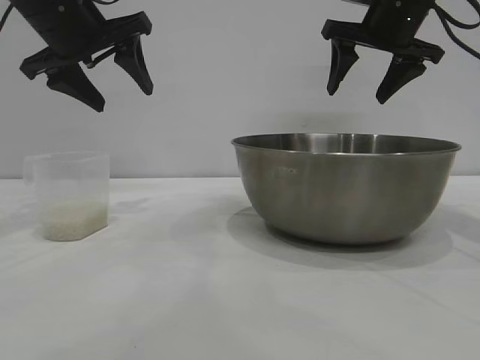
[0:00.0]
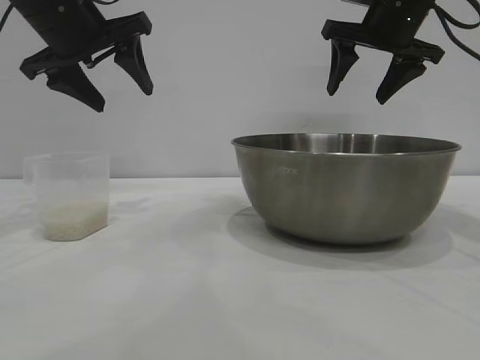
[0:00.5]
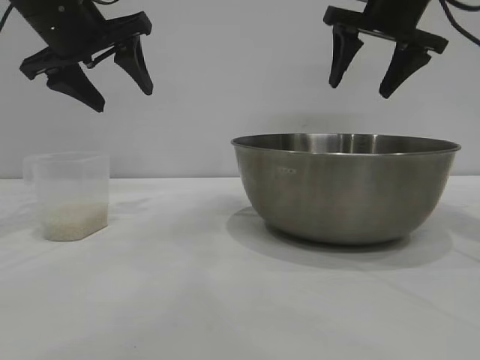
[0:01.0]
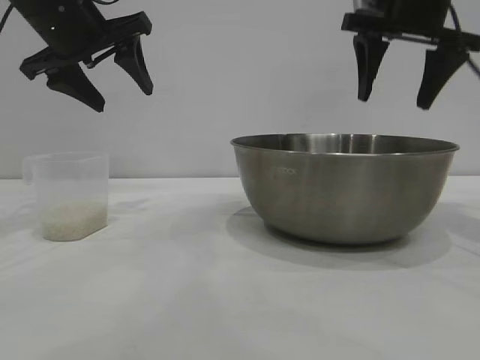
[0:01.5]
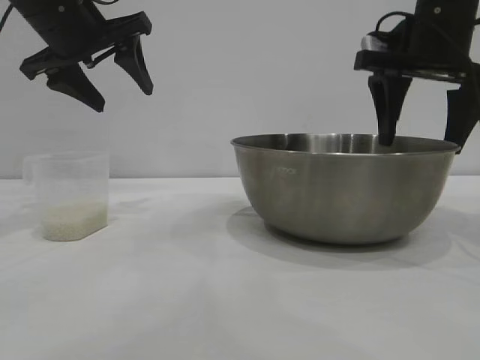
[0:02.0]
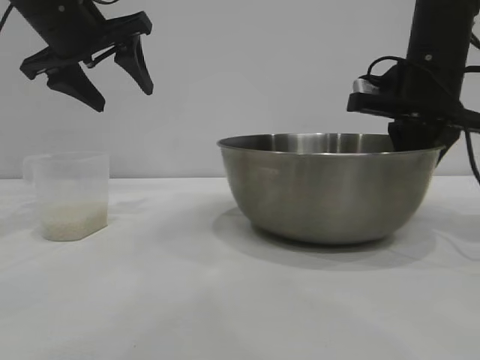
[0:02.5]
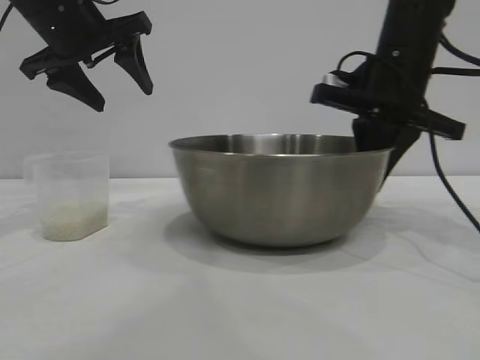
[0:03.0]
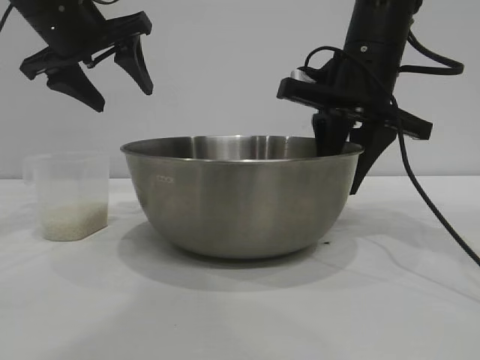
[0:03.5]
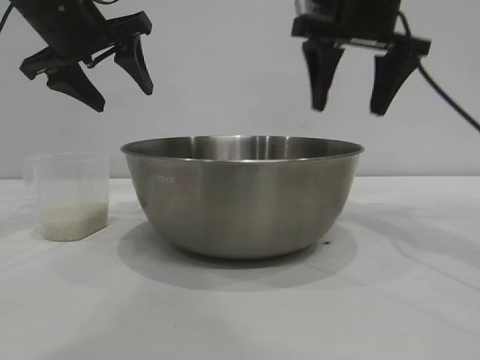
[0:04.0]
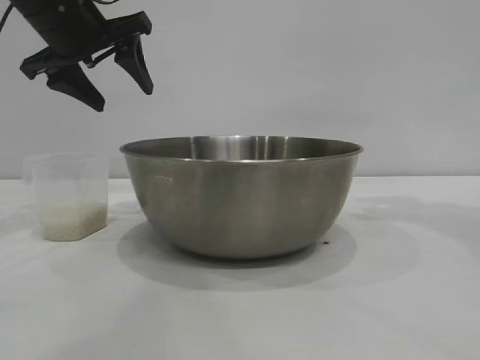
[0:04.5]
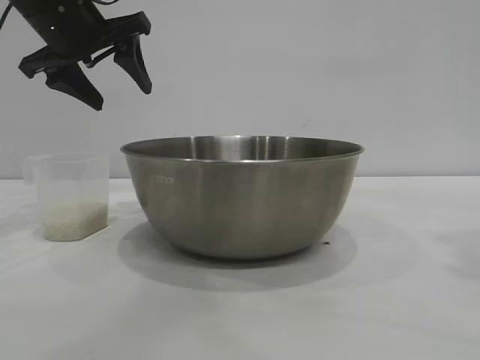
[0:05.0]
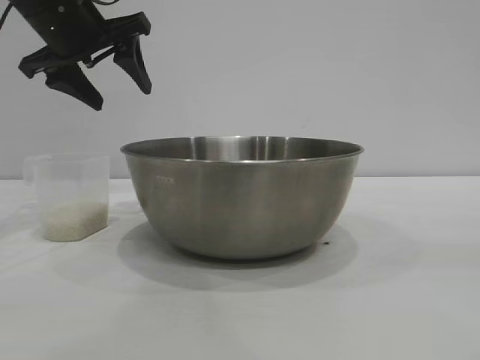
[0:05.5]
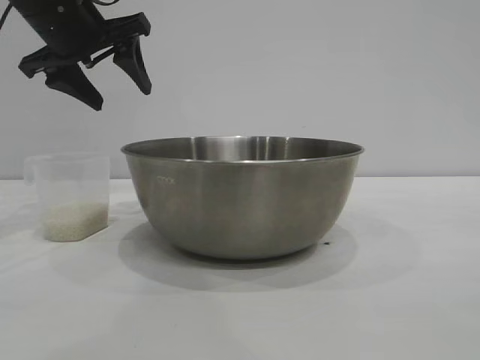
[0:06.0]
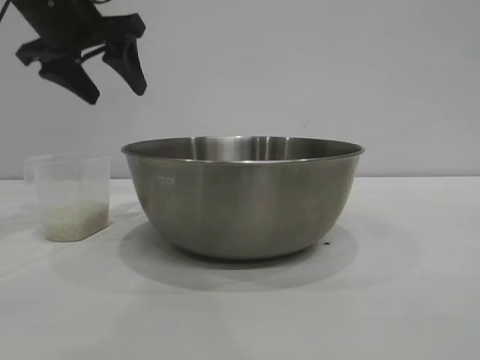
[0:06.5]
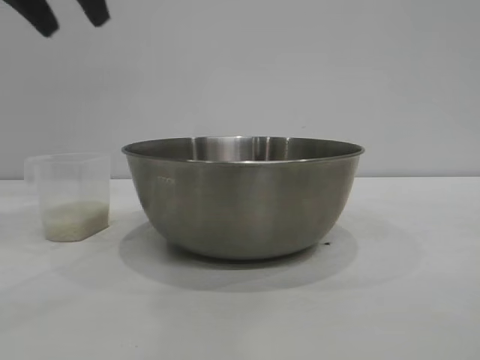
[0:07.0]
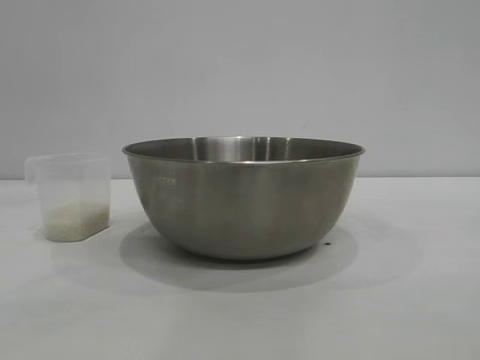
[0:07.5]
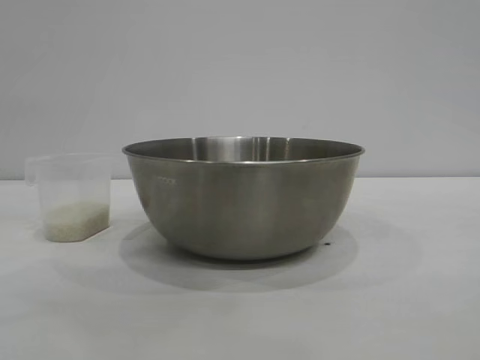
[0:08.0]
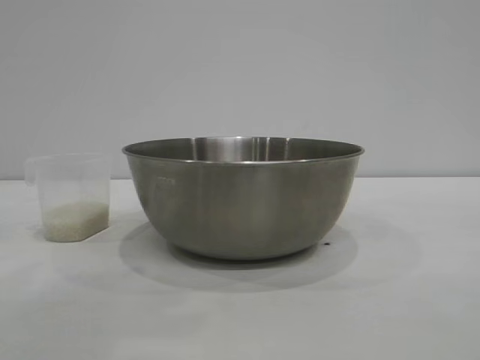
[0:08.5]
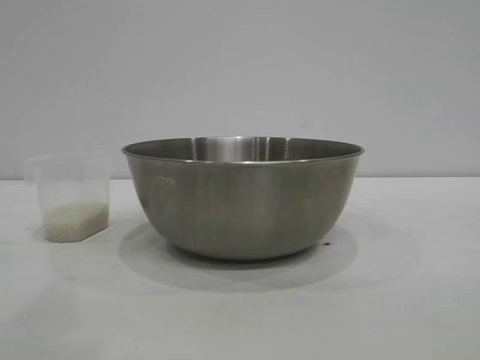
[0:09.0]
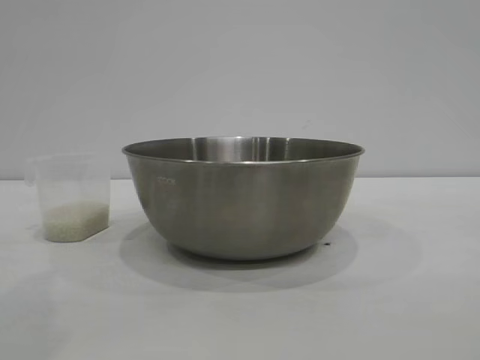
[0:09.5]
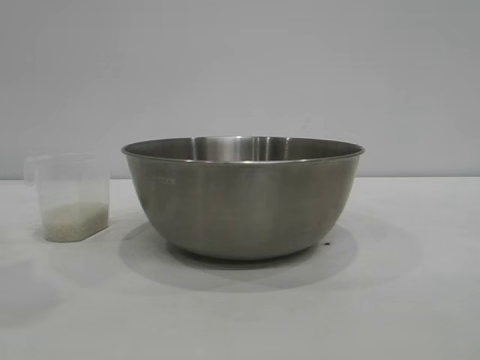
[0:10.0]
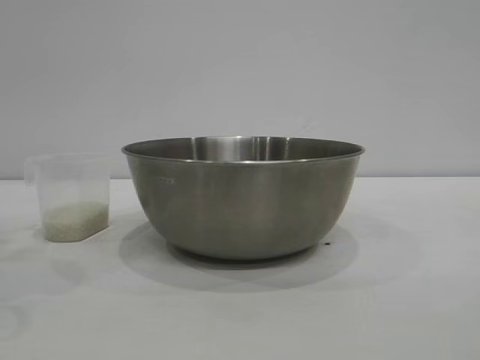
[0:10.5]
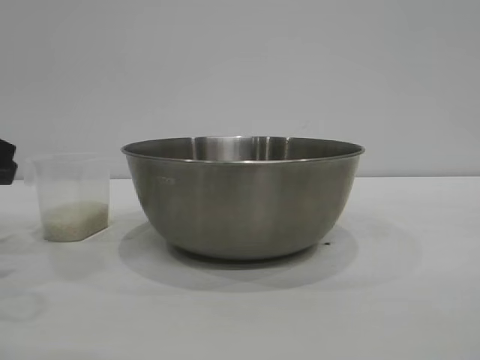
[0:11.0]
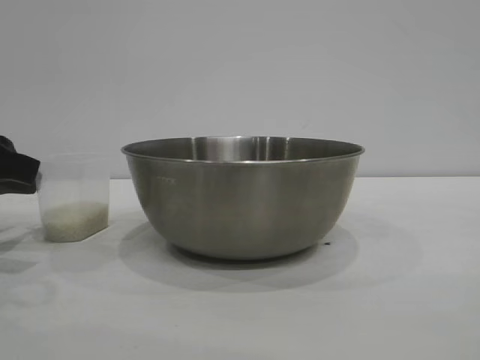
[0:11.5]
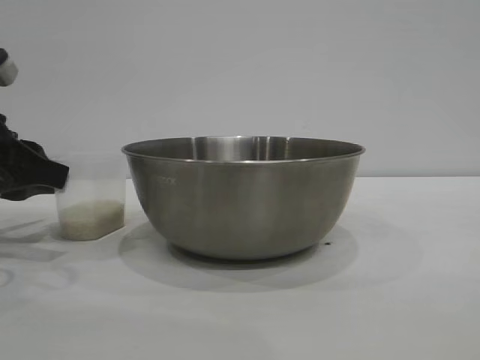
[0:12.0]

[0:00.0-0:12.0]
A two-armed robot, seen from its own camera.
Task of the whole recording: the right gripper grasp the rice container and place it in the center of the table, the left gripper grasp the rice scoop and pour the rice into the rice container.
Step, 0:00.0 to 0:03.5: Pick up the bowl with the right gripper.

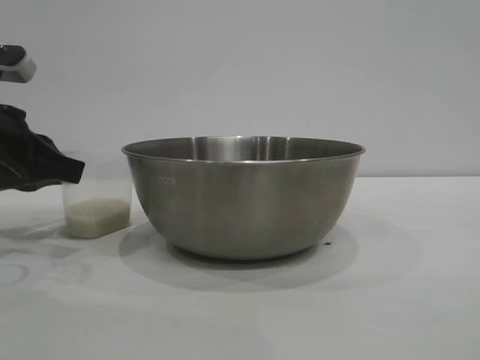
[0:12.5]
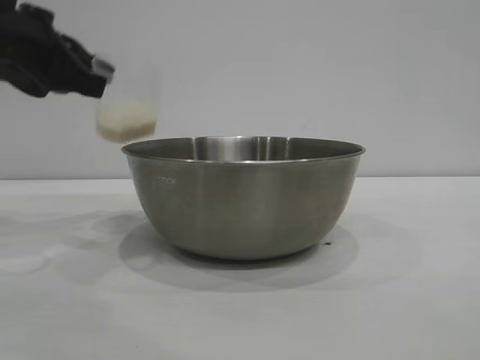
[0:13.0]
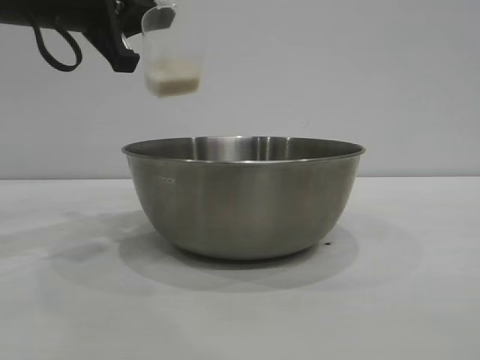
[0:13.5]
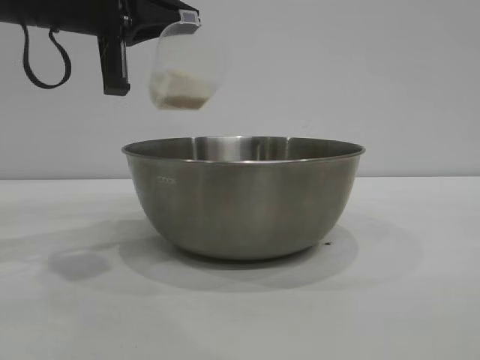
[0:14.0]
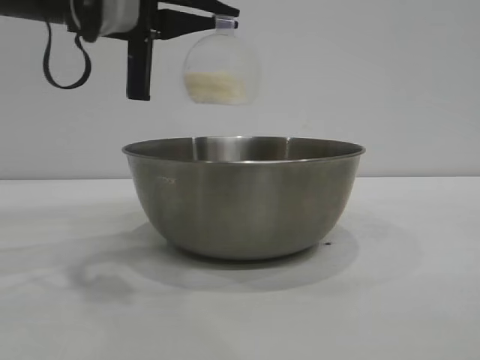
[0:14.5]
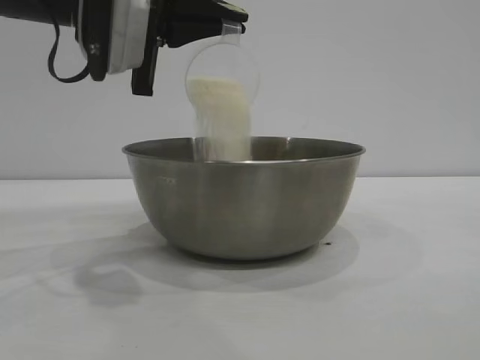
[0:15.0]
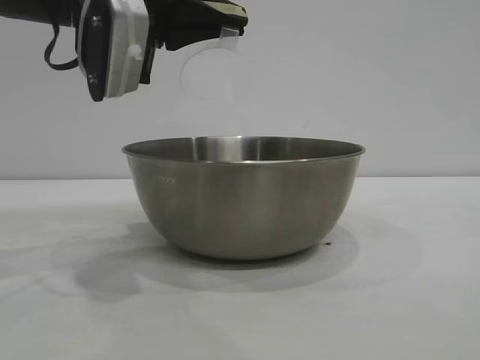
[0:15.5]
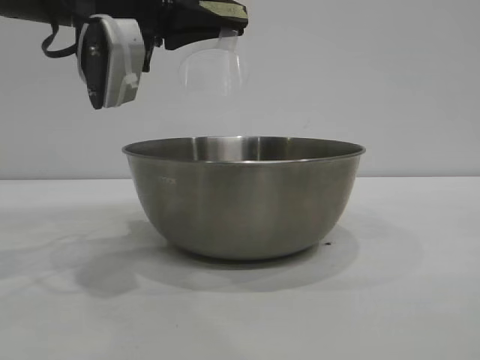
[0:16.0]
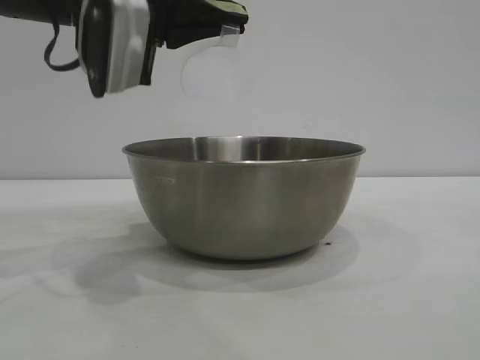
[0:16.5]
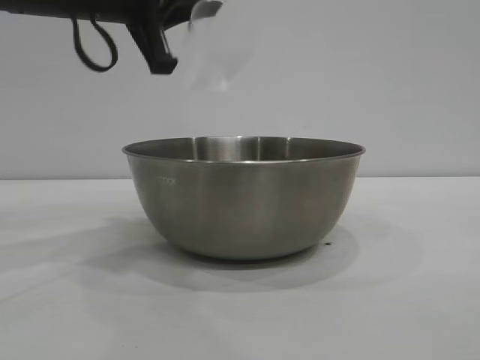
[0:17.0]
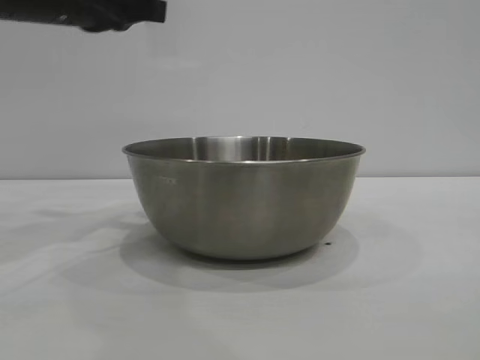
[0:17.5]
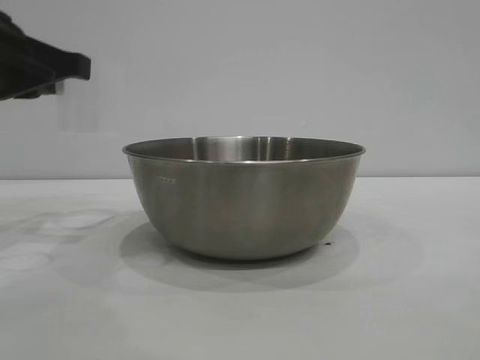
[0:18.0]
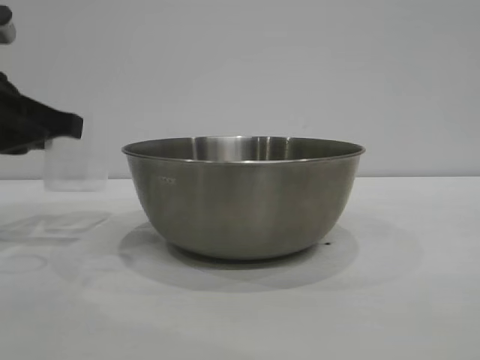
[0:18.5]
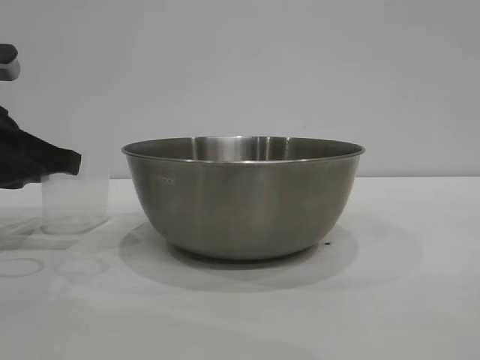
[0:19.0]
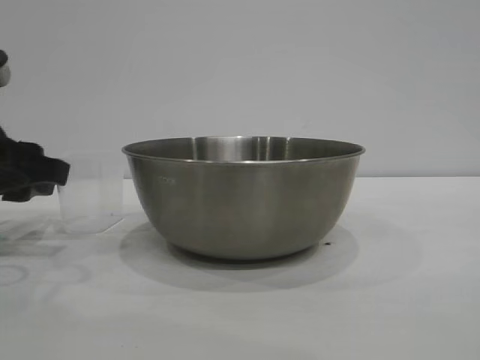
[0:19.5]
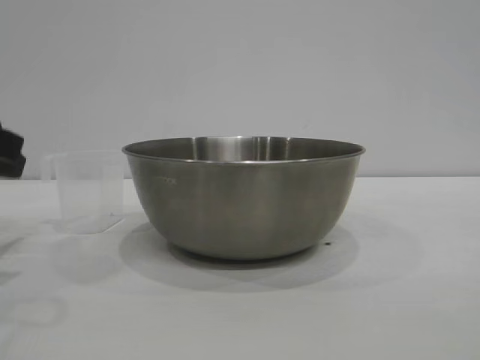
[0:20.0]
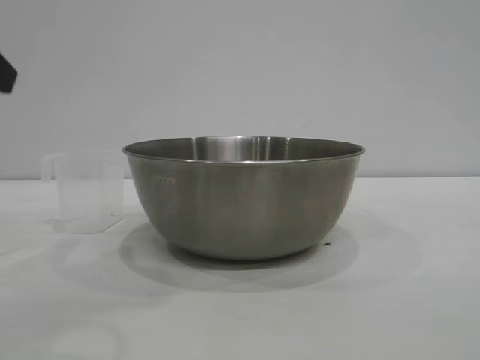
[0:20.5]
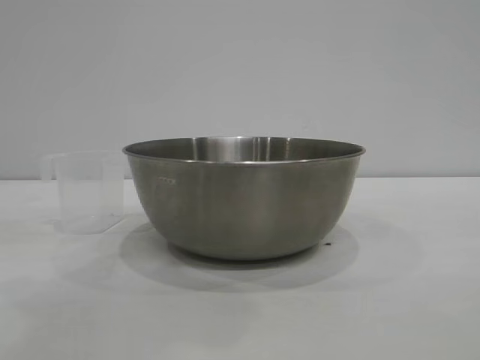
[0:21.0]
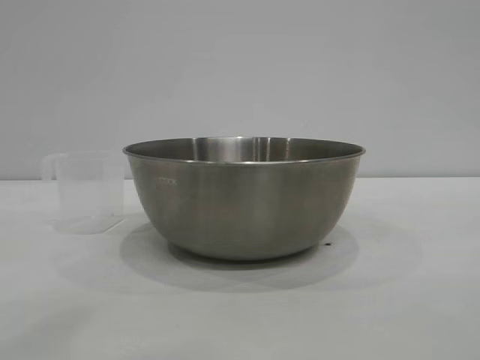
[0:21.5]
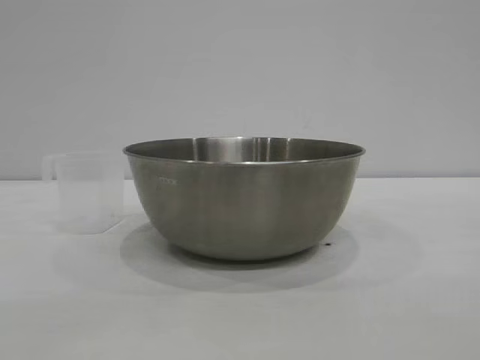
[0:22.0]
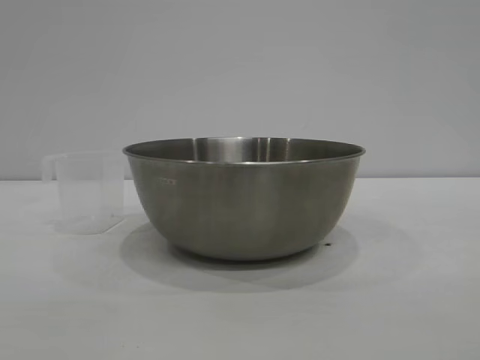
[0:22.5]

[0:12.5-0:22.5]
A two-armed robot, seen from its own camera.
Task of the whole recording: the right gripper grasp the rice container and place it in the center of the table, the left gripper grasp the rice scoop and pour the rice into the rice container.
Step, 0:13.0 to 0:16.5: Pour the rice from the cup into the bowl with the left gripper.
Step, 0:17.0 to 0:19.5: Place the cup on the table with the left gripper.

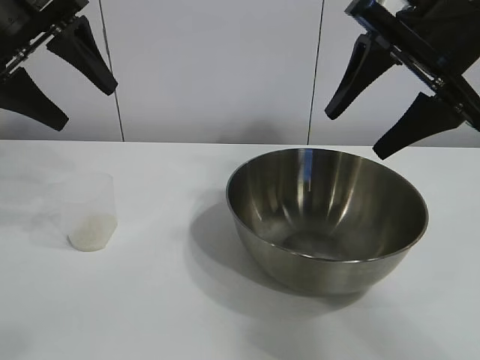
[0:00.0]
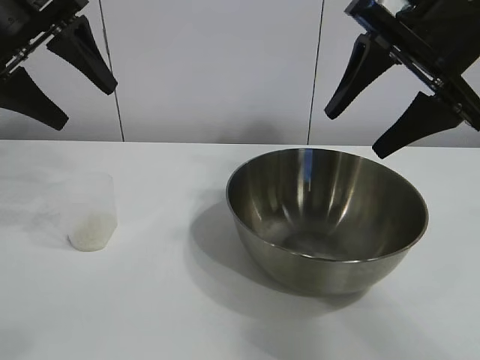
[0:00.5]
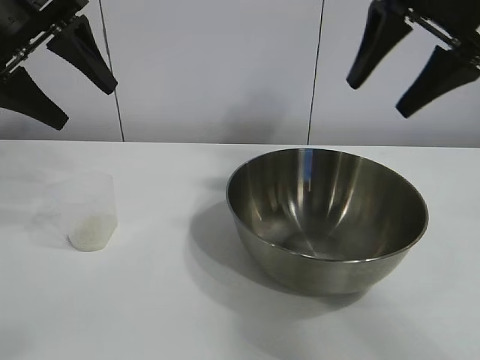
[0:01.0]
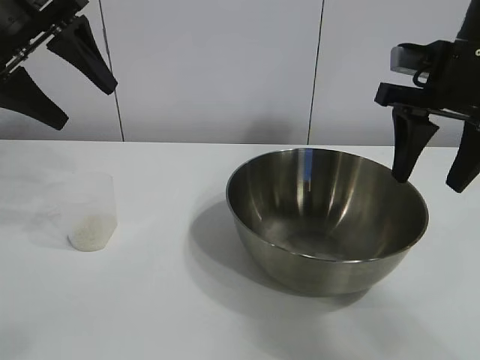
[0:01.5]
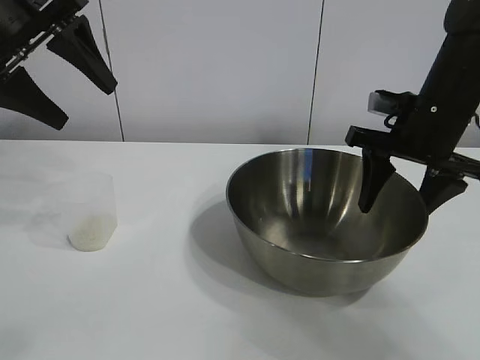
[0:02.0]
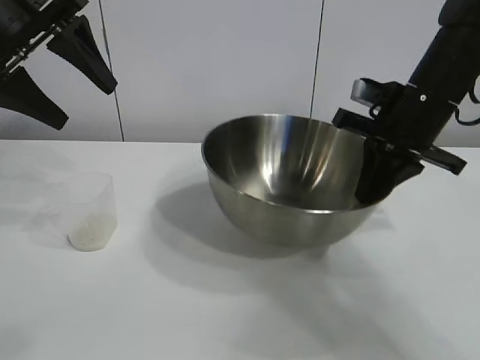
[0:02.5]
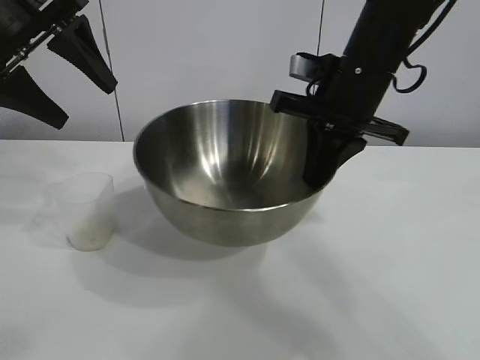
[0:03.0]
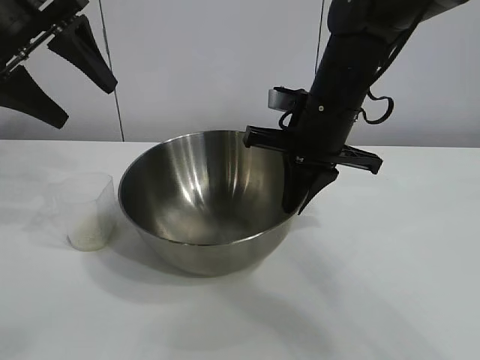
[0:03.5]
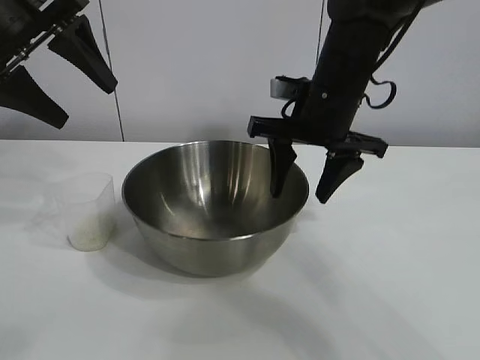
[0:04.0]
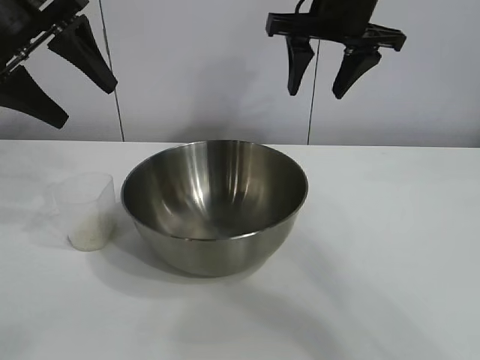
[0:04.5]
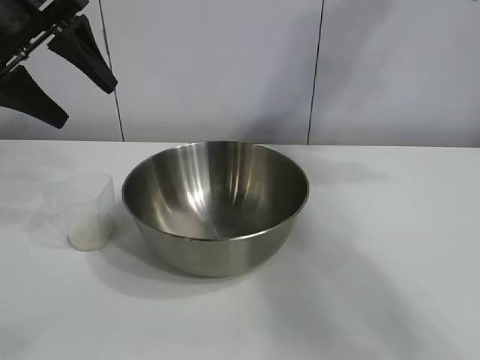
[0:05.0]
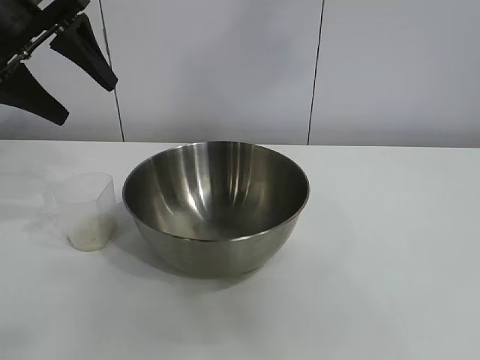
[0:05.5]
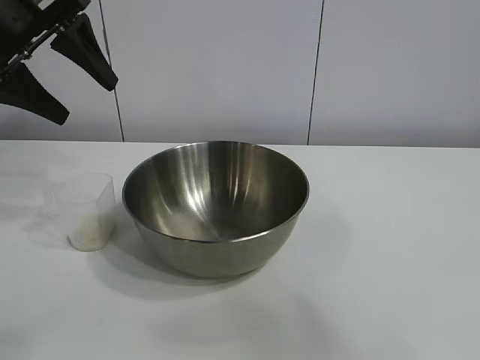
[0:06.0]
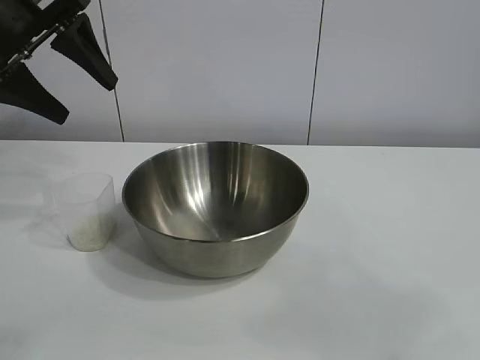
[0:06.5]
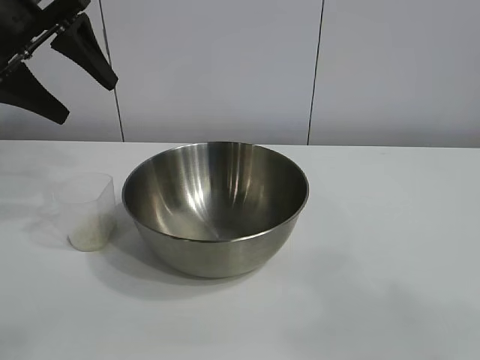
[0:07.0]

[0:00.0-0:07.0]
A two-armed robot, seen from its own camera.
Task of the whole recording: the right gripper grasp the rice container and place it in the center of the table, the left gripper grasp the rice scoop and pour the rice into the rice container.
Step, 0:01.0 to 0:04.0: Move the bowl in the center of view with right gripper.
